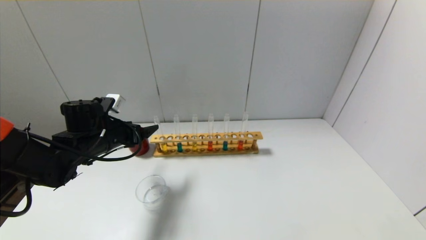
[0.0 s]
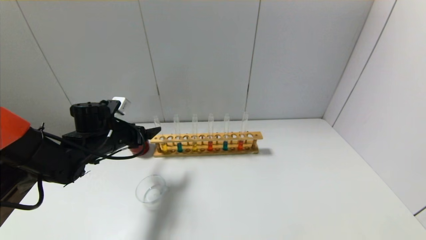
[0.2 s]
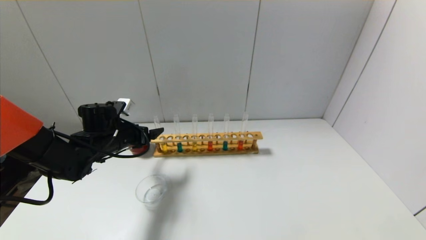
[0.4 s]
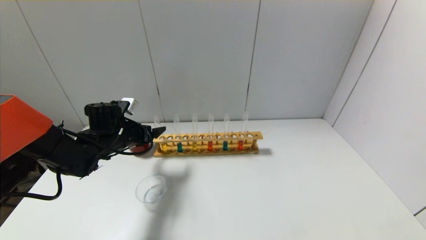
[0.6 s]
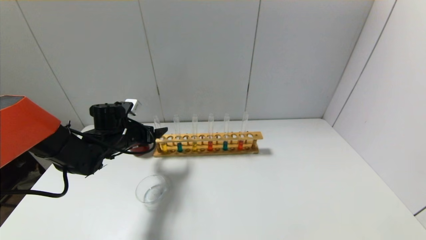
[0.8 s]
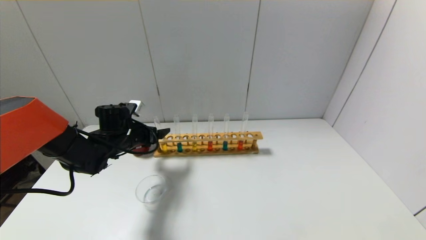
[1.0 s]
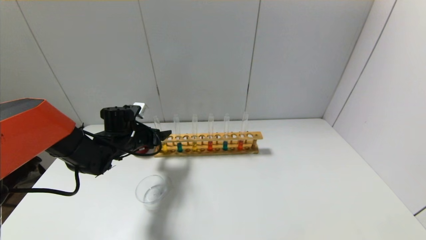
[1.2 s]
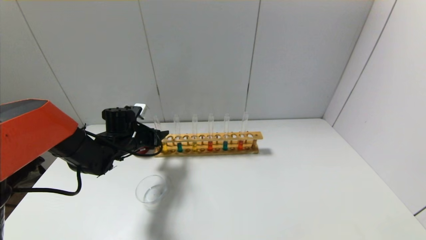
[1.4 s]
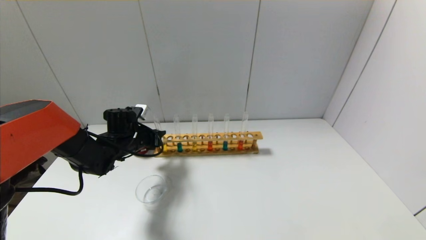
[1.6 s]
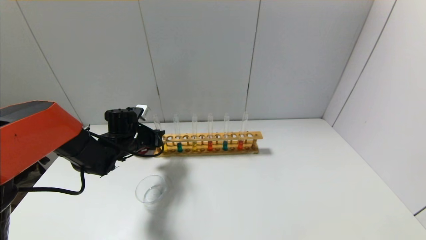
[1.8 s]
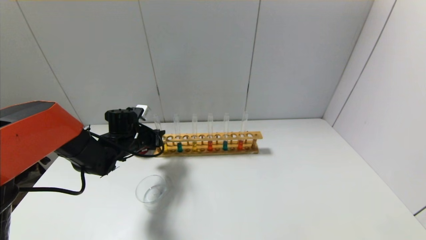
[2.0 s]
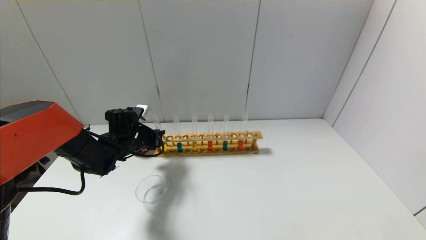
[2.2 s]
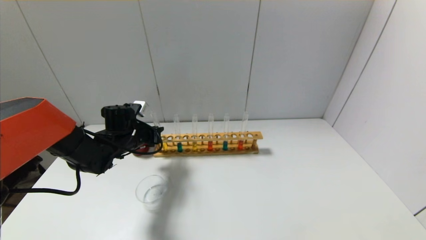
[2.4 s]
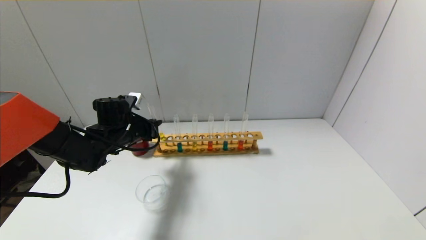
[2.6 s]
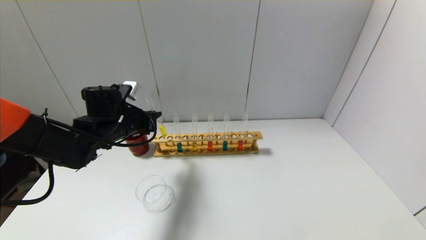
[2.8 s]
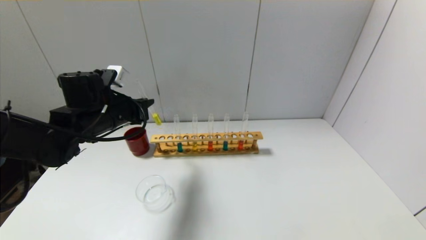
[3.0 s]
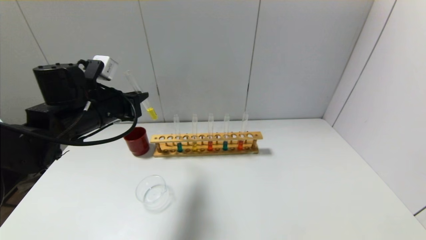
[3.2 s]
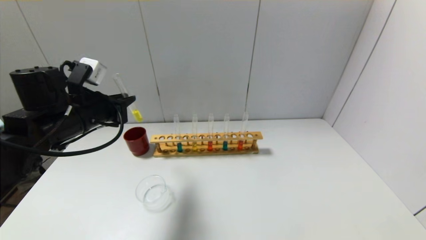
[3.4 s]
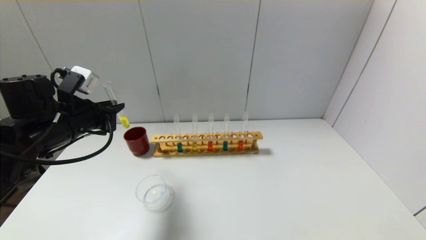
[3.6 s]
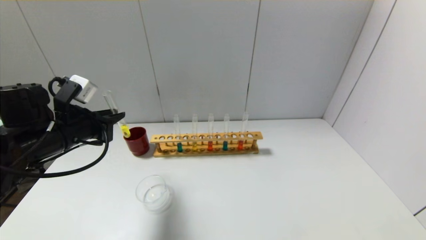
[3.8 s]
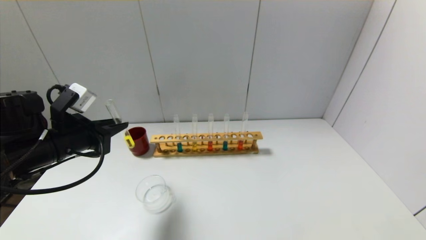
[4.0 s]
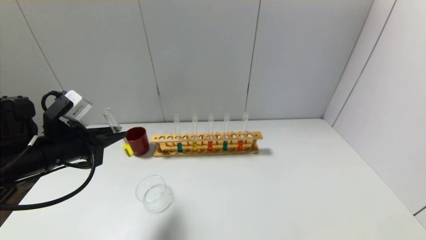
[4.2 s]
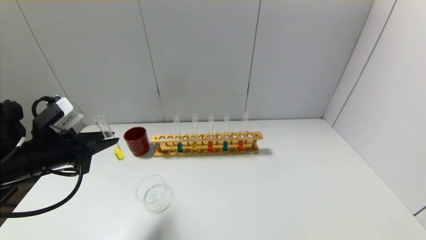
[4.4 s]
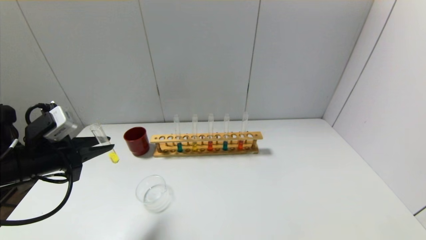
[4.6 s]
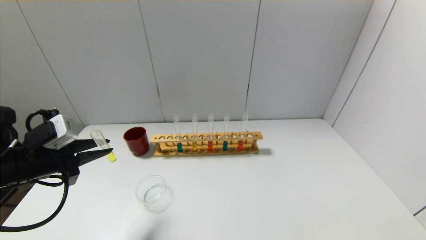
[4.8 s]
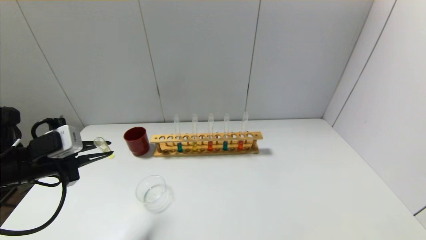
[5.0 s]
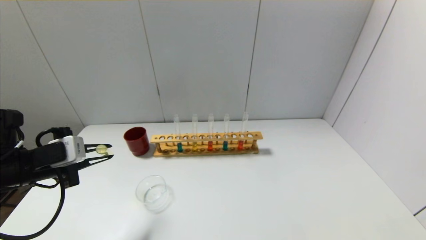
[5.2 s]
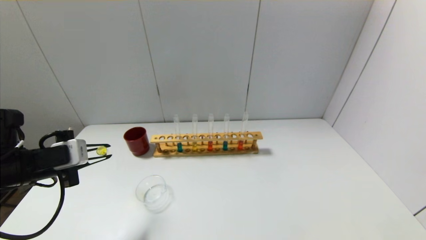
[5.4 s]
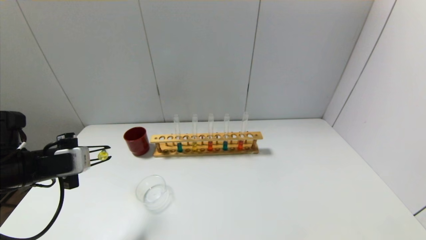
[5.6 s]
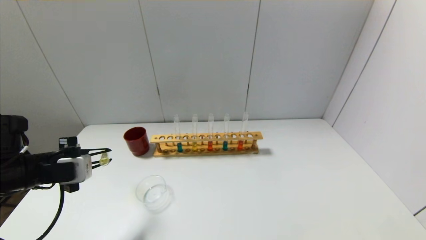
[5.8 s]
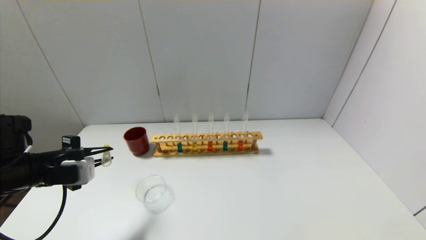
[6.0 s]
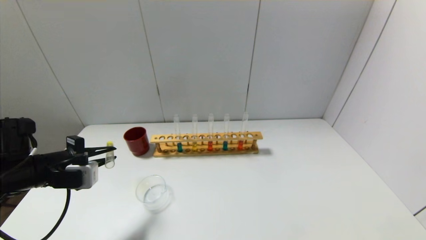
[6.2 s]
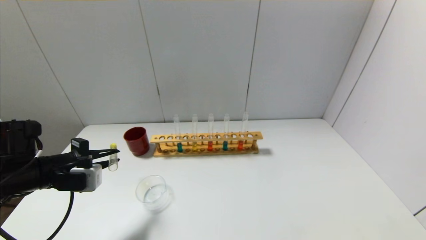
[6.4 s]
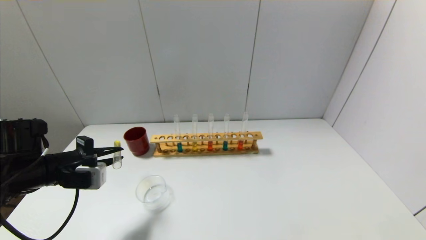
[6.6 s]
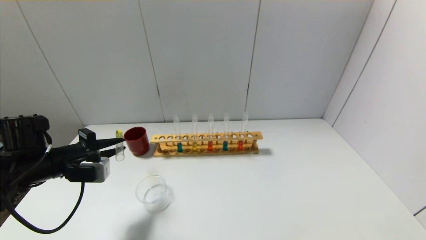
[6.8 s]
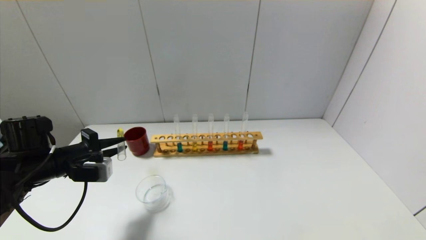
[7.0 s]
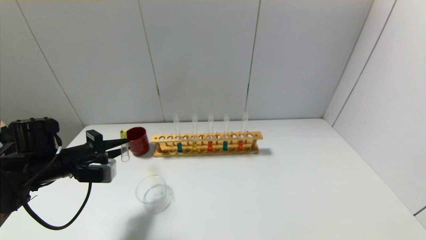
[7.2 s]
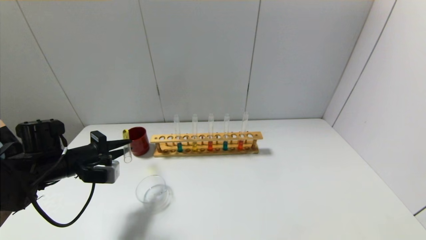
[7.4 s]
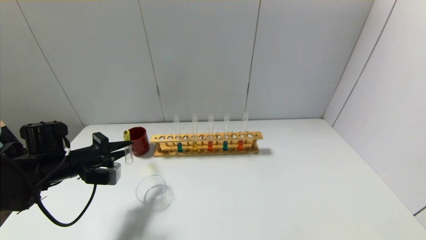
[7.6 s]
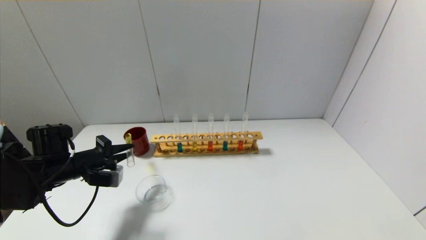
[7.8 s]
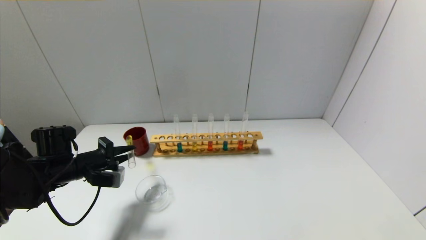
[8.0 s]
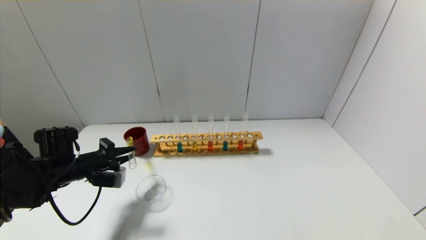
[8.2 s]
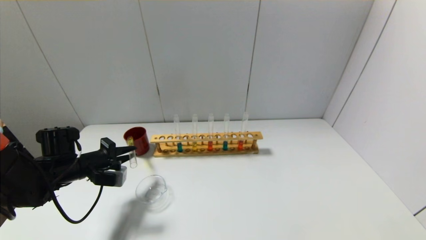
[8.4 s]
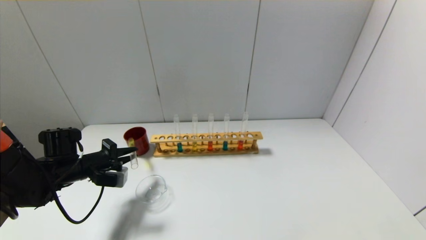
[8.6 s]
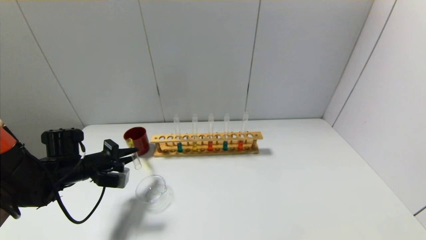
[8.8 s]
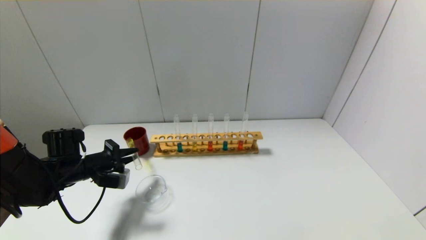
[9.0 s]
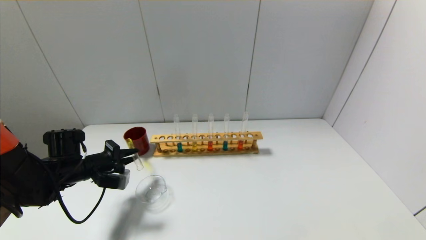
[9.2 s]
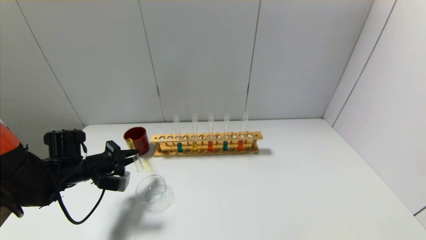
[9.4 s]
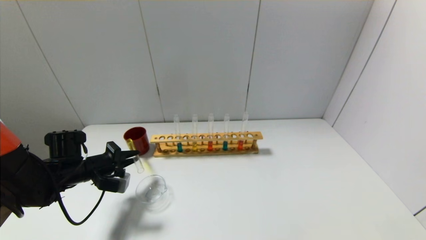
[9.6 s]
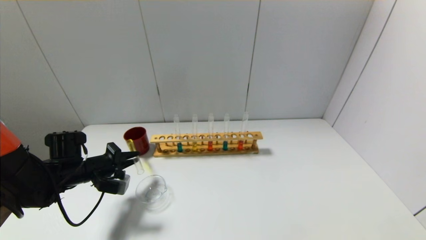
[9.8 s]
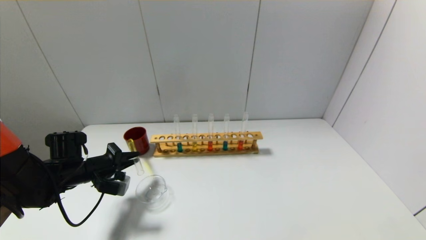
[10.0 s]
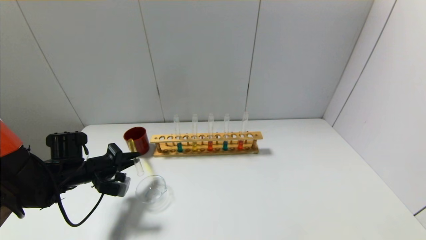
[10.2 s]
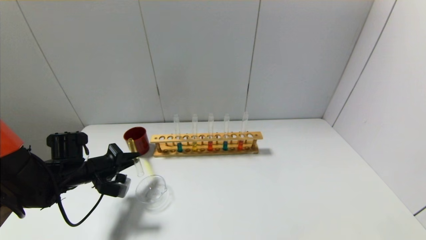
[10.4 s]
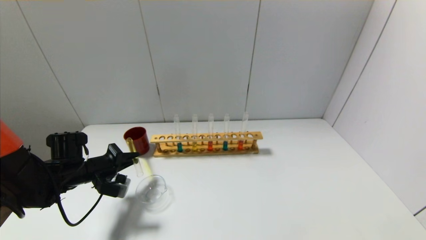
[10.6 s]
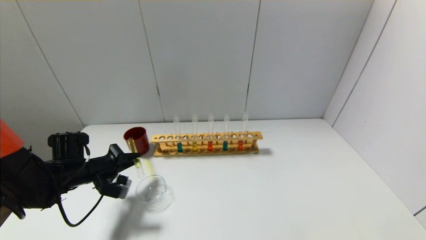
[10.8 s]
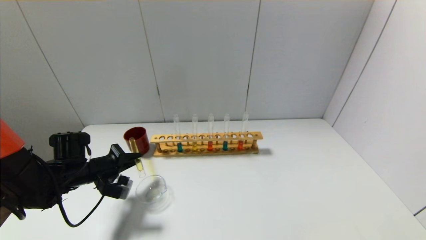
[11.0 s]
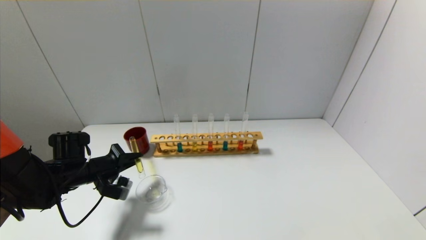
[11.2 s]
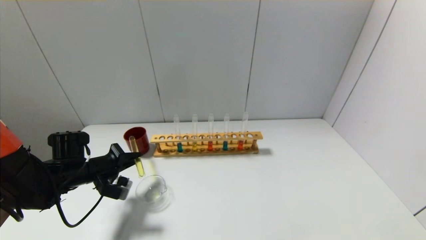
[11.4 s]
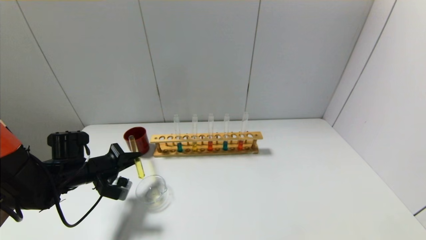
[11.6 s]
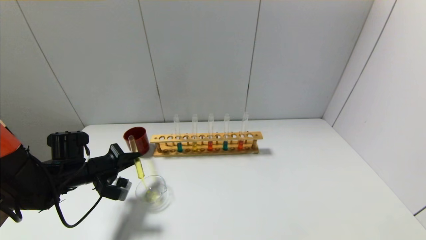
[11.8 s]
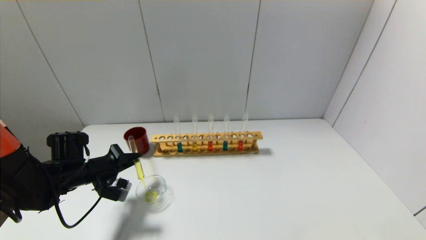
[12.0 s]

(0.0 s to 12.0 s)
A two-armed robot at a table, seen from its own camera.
0.0 s - 1.6 s: The left gripper shifts some 10 cm forward and downward, and closes.
1.6 s - 3.0 s: The left gripper goes about 15 cm upward and backward.
3.0 s - 4.4 s: The left gripper moves backward and to the left, approximately 15 cm.
6.0 s - 7.6 s: The left gripper heads forward, covering approximately 5 cm.
7.6 s - 12.0 s: The grippers make only small movements.

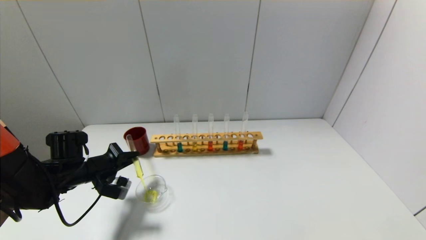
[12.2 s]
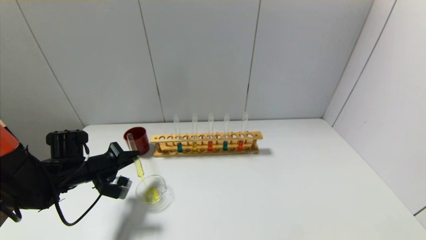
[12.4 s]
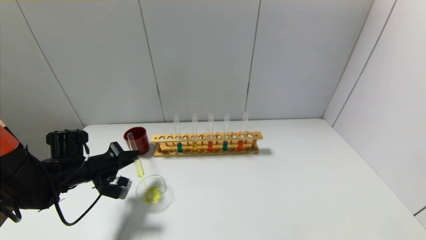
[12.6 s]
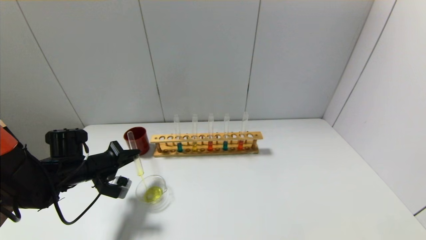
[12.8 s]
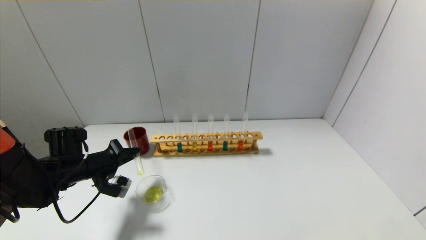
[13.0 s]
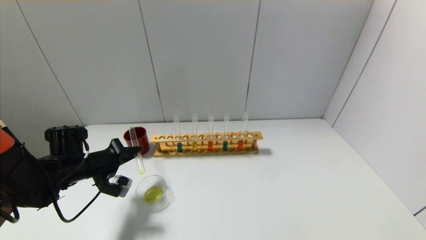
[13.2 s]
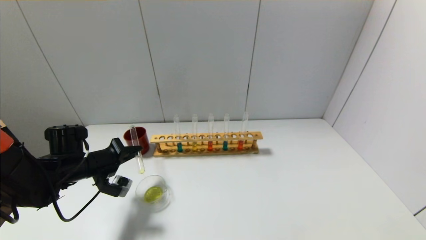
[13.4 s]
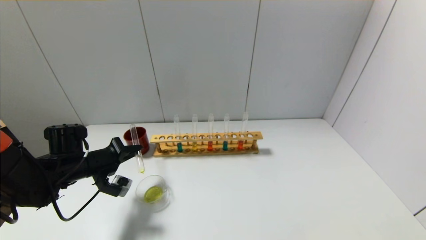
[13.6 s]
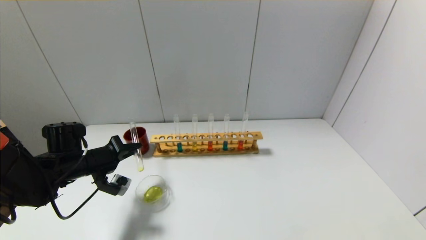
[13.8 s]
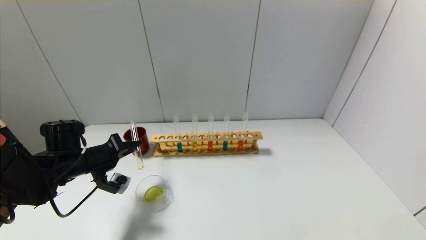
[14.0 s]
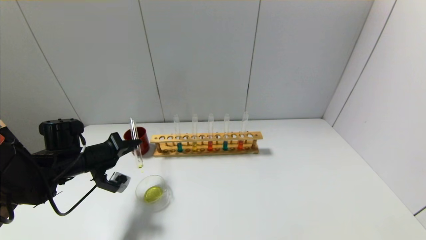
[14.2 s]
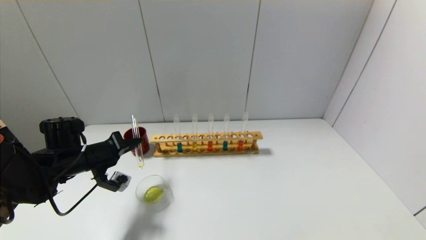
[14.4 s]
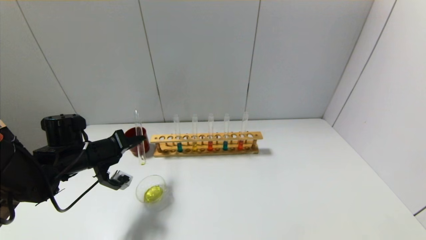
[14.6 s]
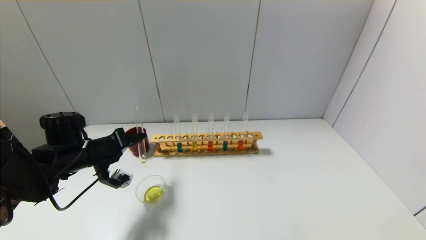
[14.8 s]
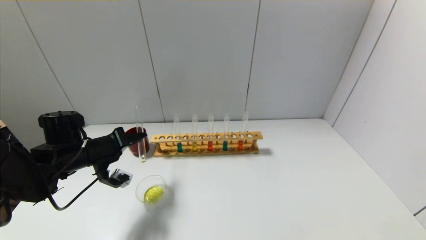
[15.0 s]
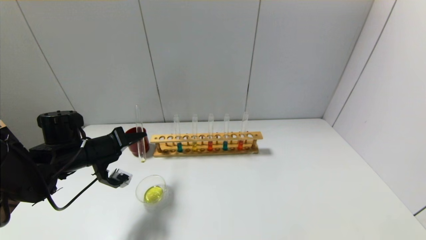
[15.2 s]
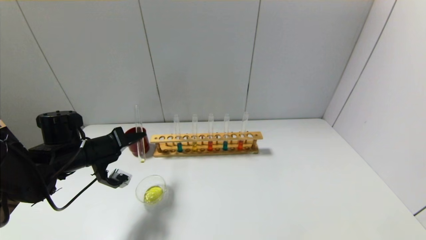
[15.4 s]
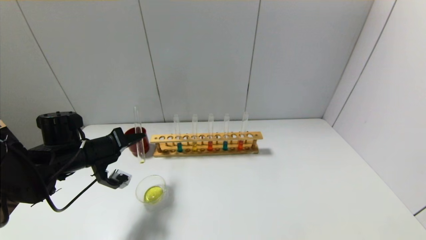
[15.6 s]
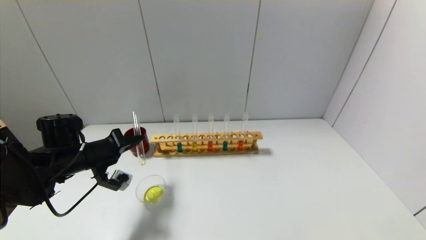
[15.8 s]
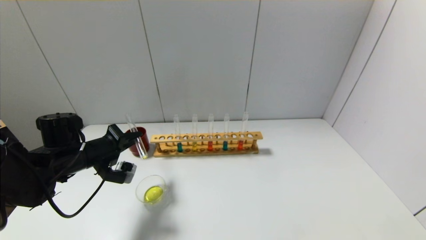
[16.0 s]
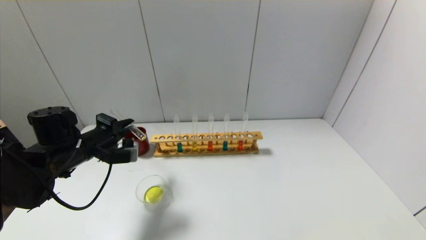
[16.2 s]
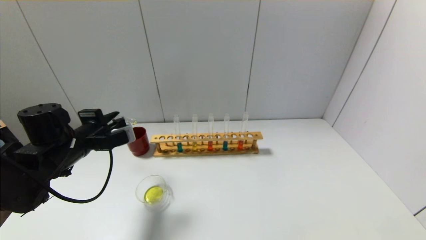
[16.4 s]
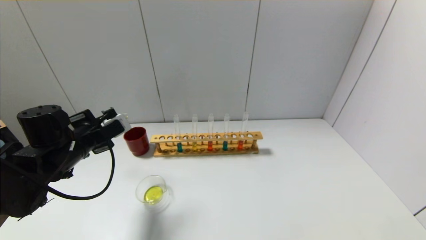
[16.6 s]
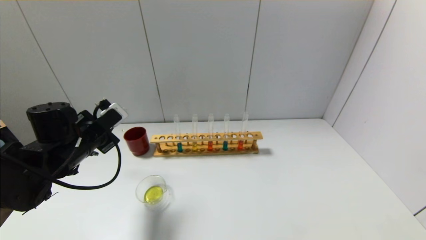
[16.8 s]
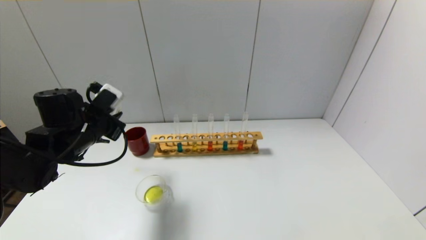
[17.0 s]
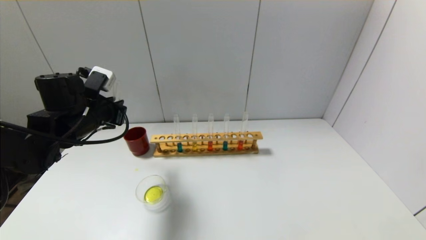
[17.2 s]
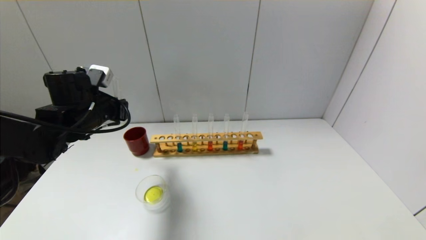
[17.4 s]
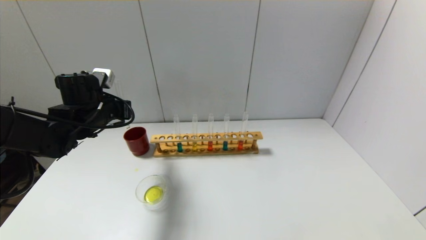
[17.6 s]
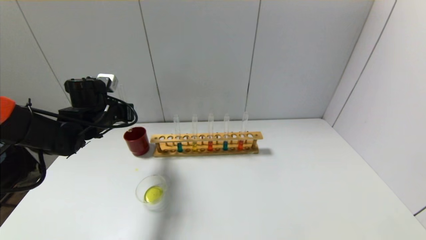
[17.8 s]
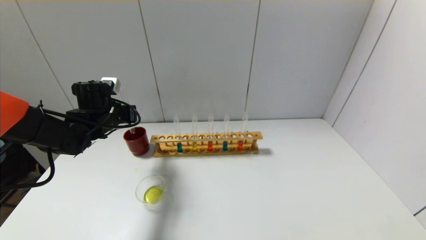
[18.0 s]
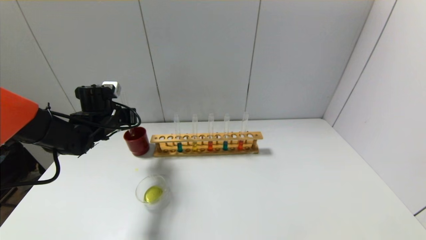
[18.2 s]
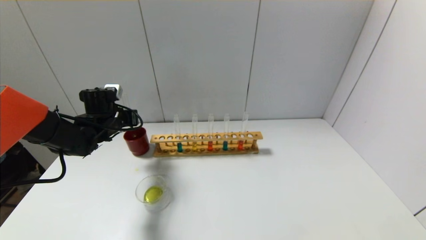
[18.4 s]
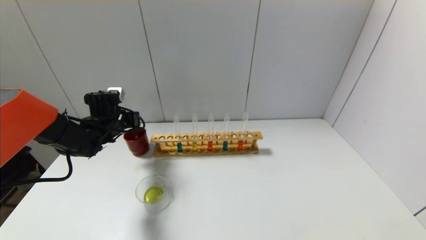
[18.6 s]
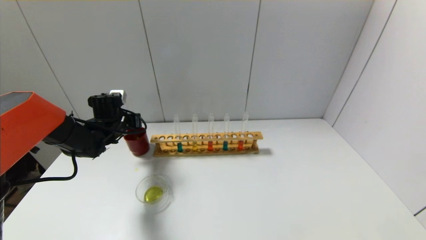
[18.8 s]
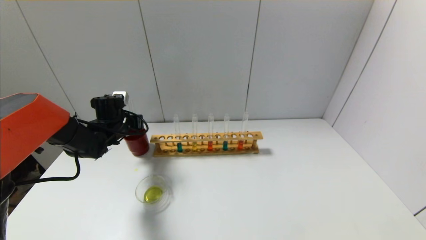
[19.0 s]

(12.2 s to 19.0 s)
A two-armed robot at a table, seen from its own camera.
Step, 12.2 s - 16.0 s: Pour the yellow reagent into the graduated cylinder with the left gripper.
12.2 s - 13.6 s: The grippers make only small movements.
13.6 s - 15.0 s: The grippers stay close to where they were, moving slightly.
16.2 s - 17.6 s: The left gripper travels forward by approximately 5 cm.
17.6 s - 19.0 s: The left gripper heads downward and forward, covering some 10 cm.
